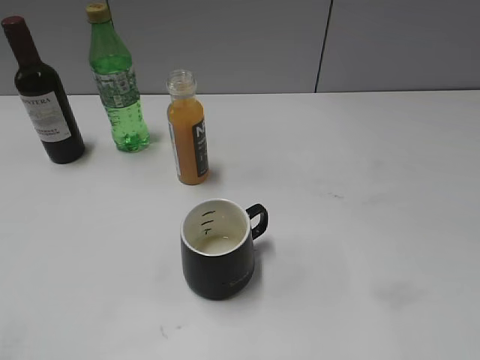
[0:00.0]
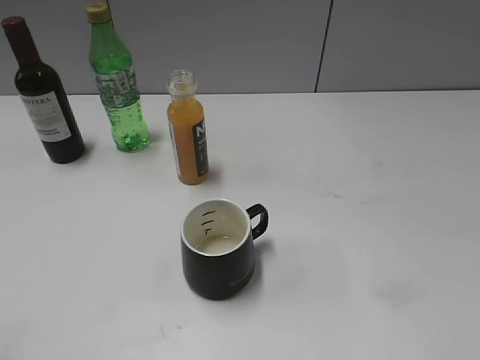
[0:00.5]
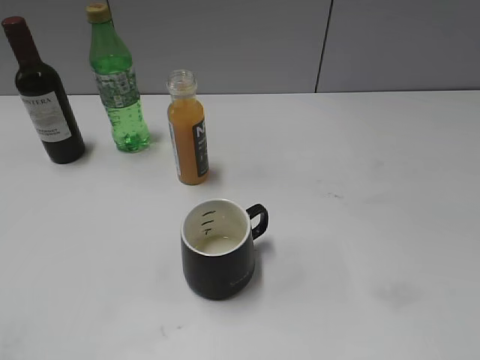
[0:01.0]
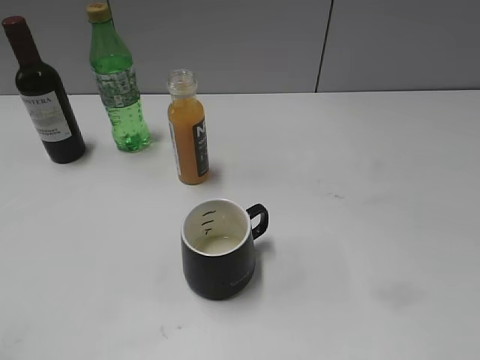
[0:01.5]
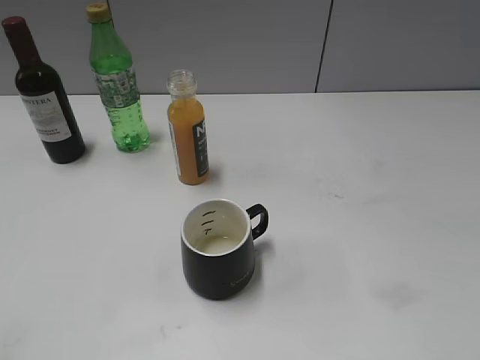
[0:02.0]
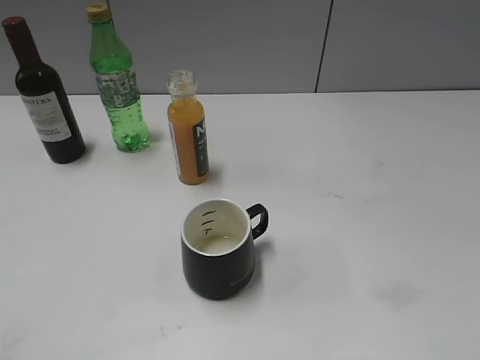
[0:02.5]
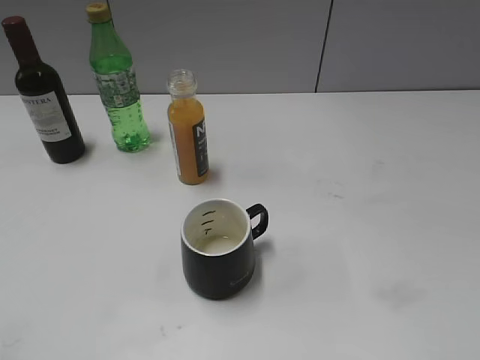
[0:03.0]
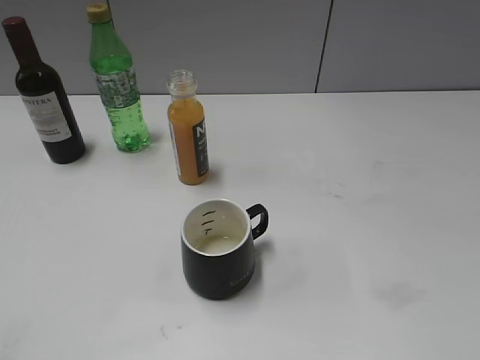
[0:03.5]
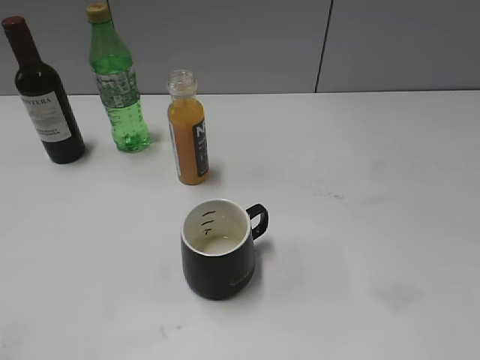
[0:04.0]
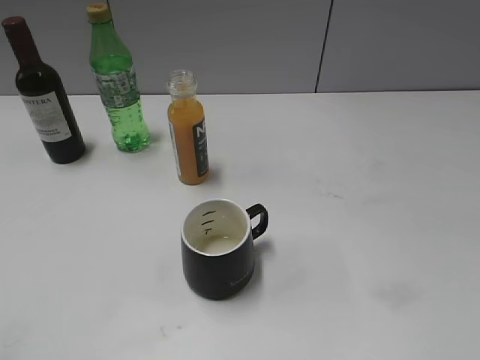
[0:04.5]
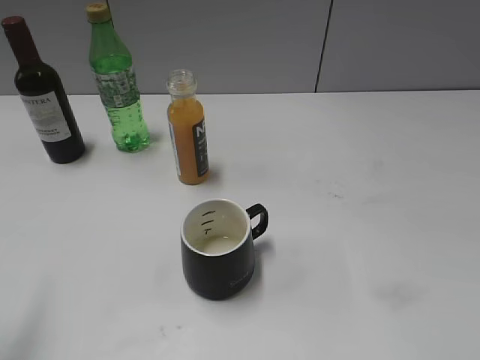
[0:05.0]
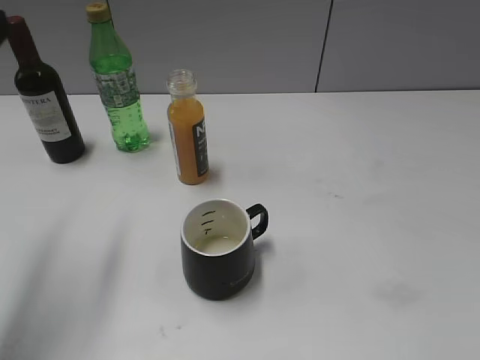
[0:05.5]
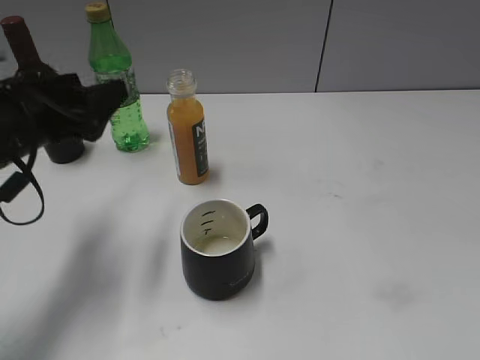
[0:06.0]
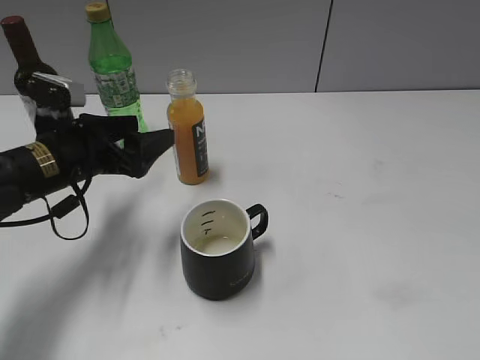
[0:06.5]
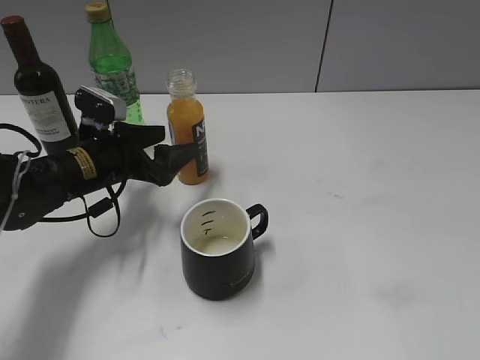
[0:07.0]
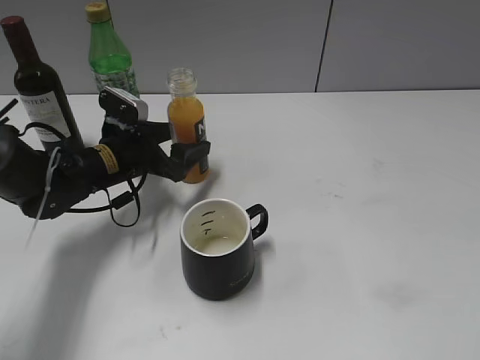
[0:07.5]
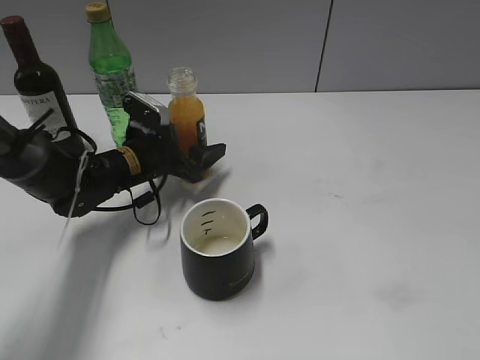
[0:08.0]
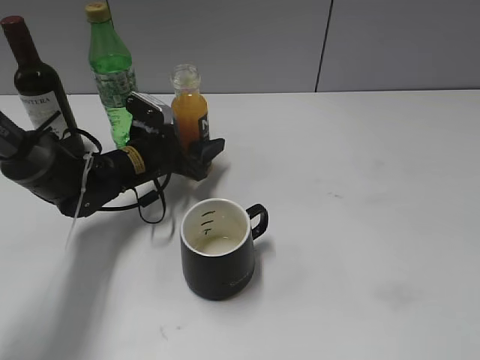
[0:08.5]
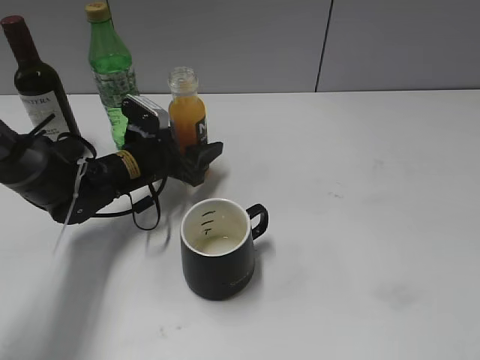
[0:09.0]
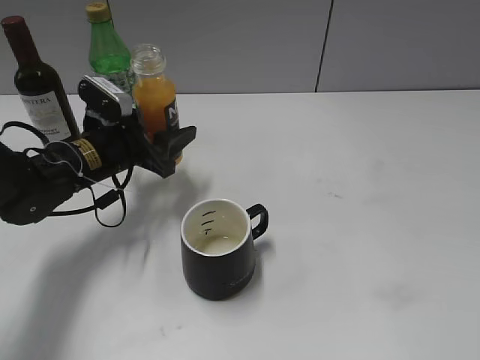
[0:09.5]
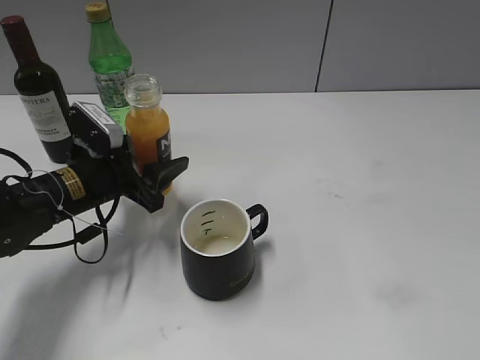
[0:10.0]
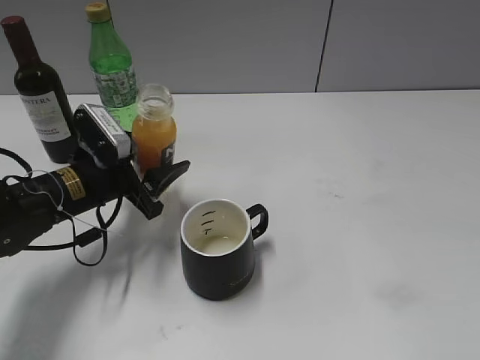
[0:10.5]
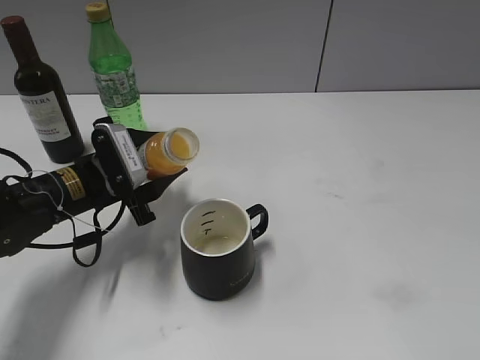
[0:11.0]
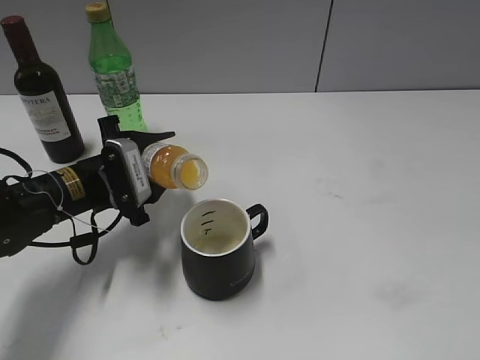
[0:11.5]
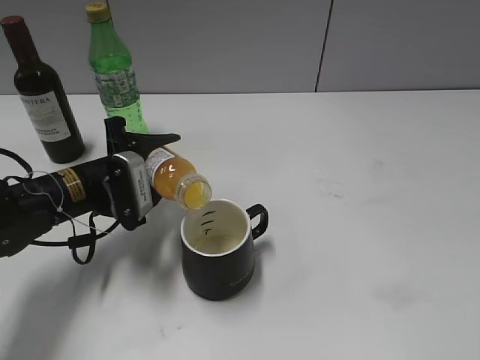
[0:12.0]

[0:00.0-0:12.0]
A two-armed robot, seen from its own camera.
Step, 0:00.0 to 0:09.0: Grasp the bottle with orange juice with left gripper.
0:04.0 to 0:06.0: The left gripper is displaced forward by approximately 30 cm.
0:06.0 to 0:08.0: The left gripper moves downward, forward and to the right, approximately 20 cm.
0:08.0 to 0:10.0: The left gripper heads backward, covering some 5 cm, and closes its fingers.

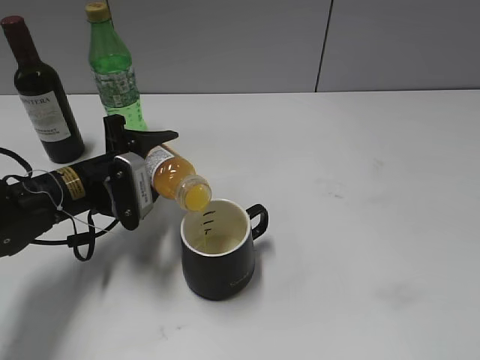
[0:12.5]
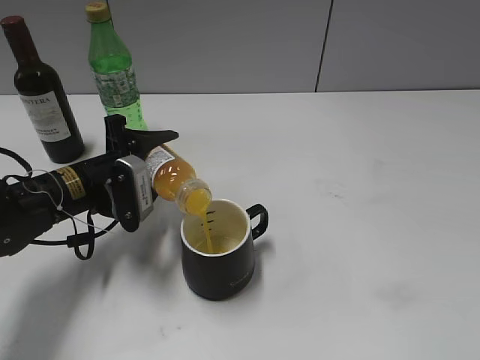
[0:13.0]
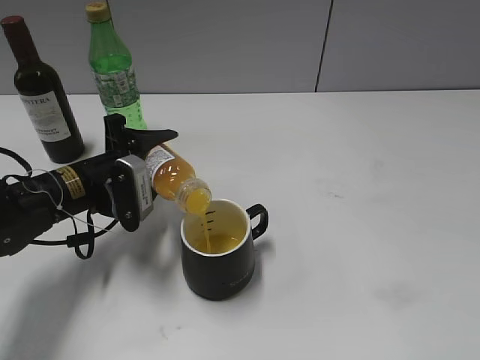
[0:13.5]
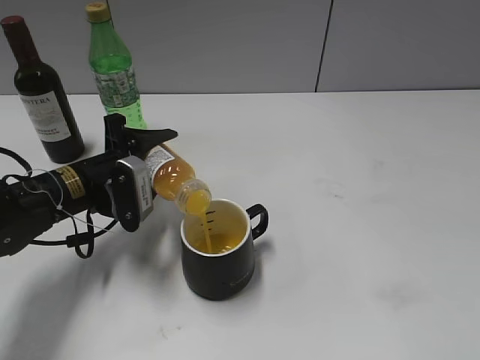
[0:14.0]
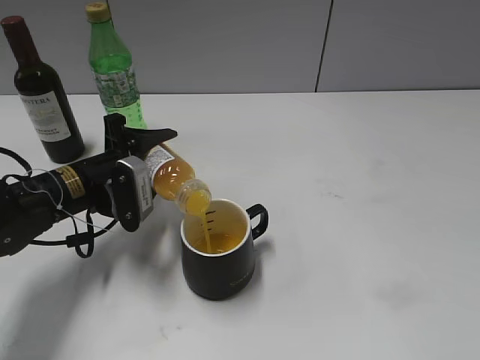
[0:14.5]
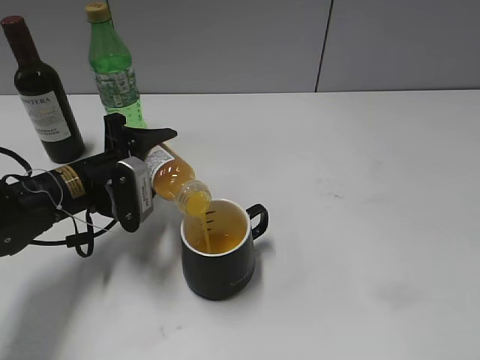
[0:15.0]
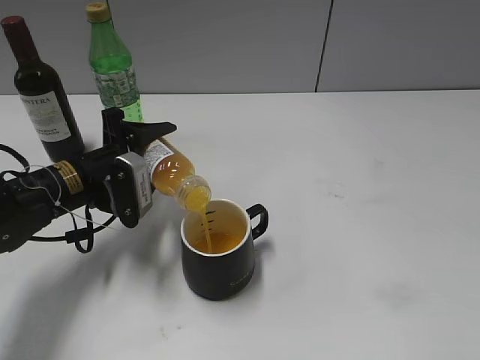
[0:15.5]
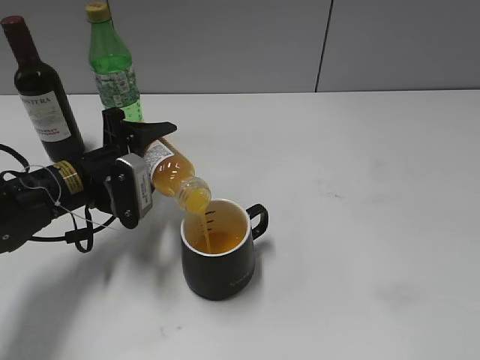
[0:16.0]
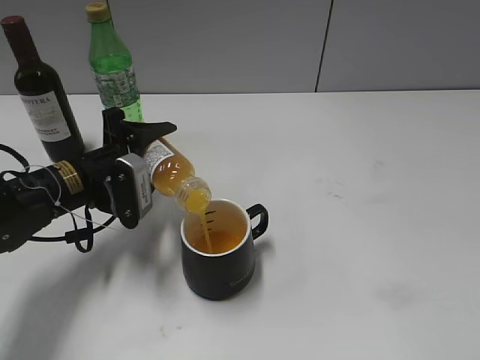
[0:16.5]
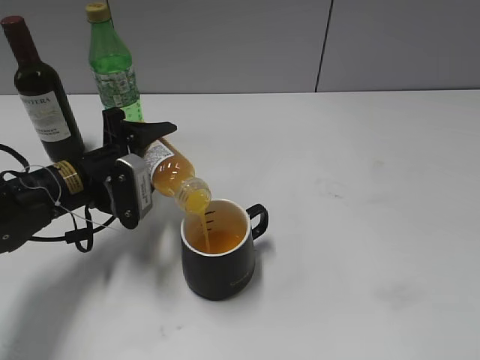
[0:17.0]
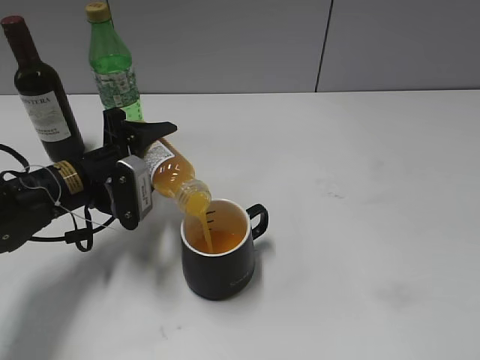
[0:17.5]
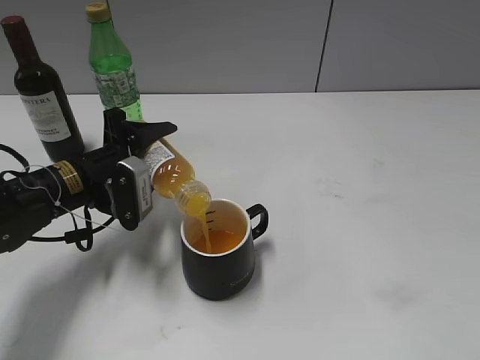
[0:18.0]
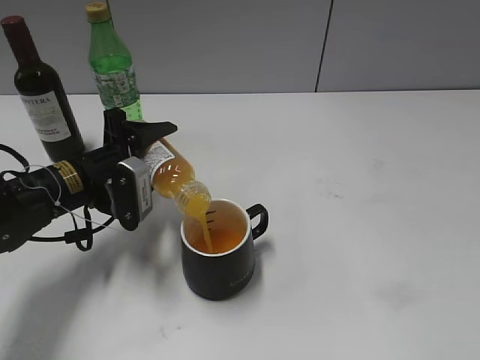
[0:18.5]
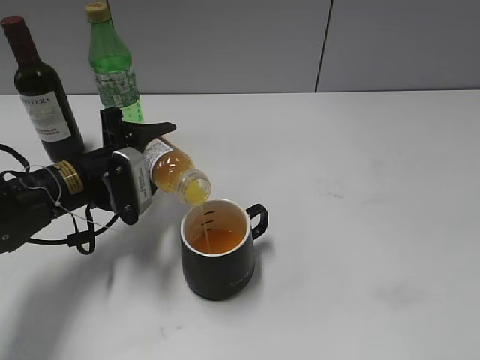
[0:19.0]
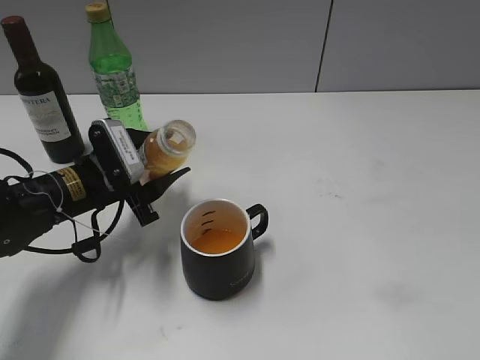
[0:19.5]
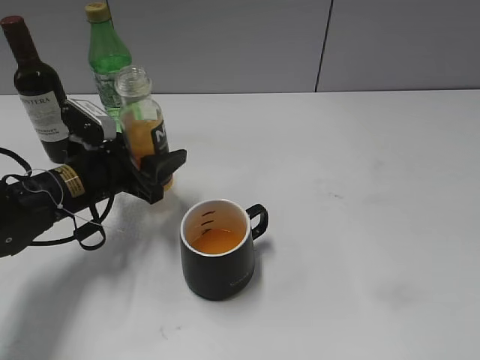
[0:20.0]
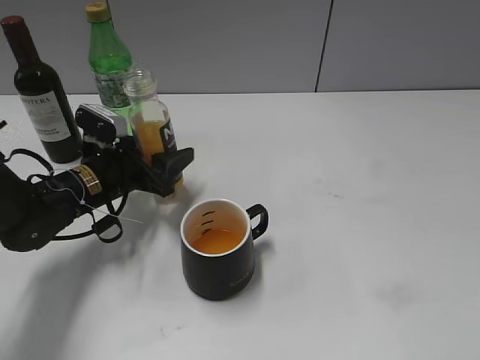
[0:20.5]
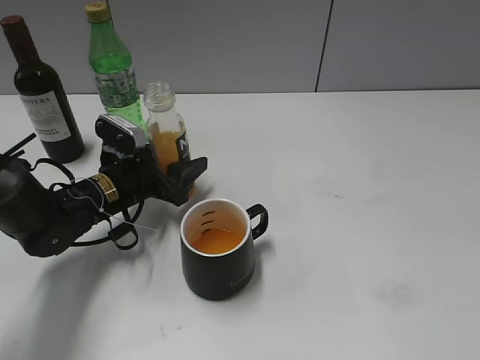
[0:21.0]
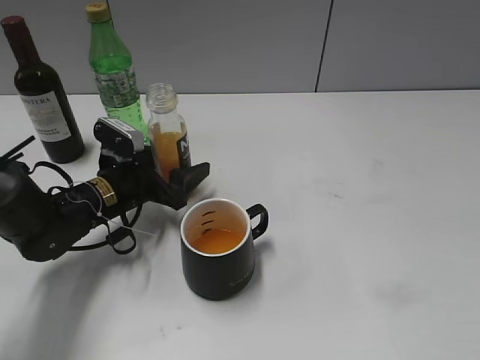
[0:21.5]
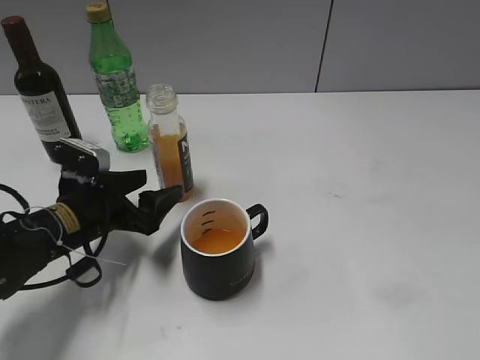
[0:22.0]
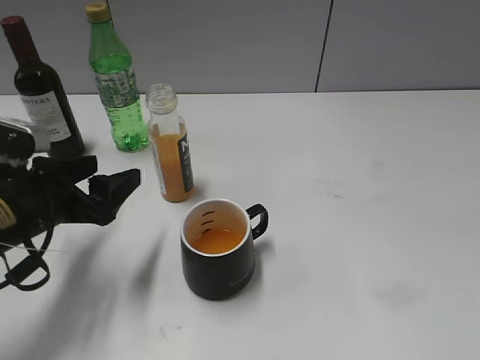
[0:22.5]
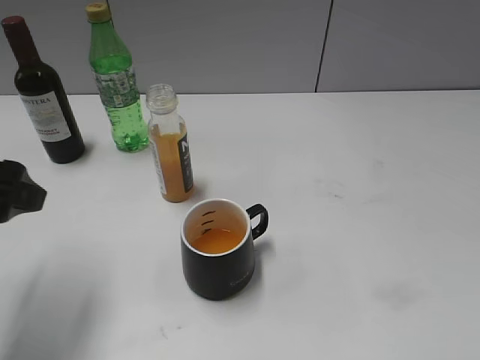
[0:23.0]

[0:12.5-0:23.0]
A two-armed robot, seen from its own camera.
Step, 0:12.5 to 0:19.0: Pour the orange juice from bottle to cup with left gripper.
Step, 0:19.5 to 0:21.5: Place the orange juice bottle on the table with left gripper.
0:12.5 to 0:14.5: Neither gripper changes place.
0:14.5 to 0:16.5: Neither gripper changes place.
0:16.5 to 0:19.0: The two grippers keep their place.
0:19.0 to 0:21.0: The left gripper ends up some 5 cm from where it was.
0:21.0 to 0:23.0: The left gripper goes about 25 cm upward, backward and to the left.

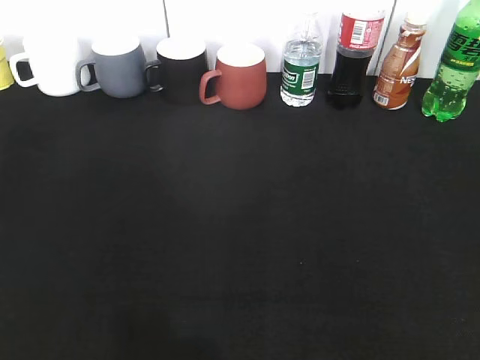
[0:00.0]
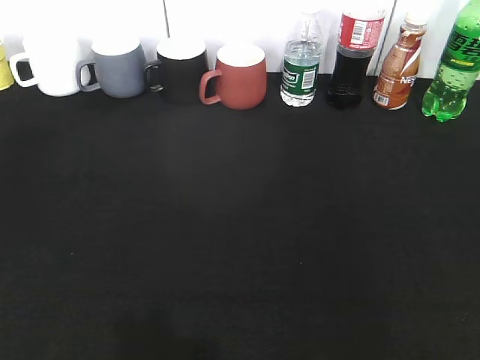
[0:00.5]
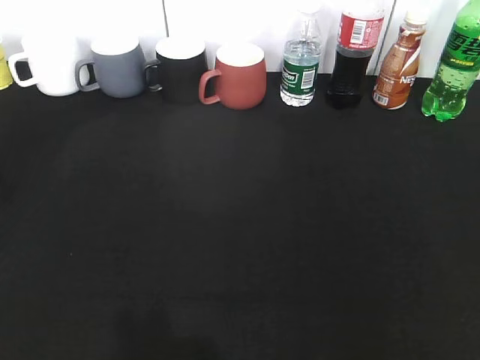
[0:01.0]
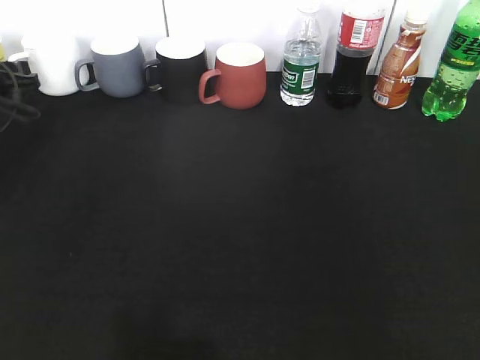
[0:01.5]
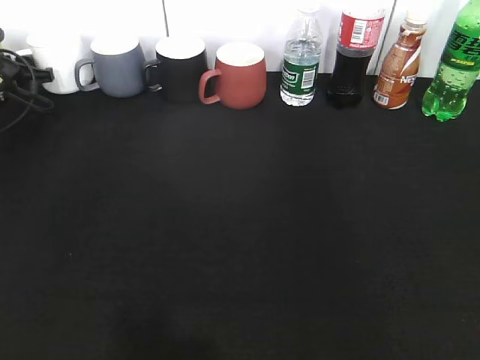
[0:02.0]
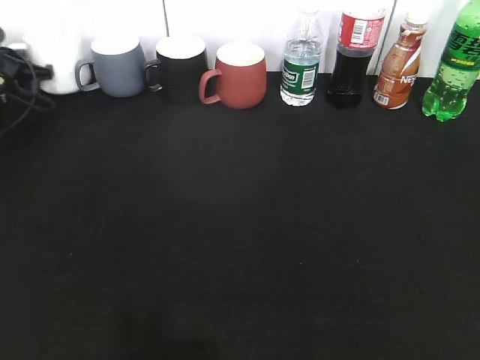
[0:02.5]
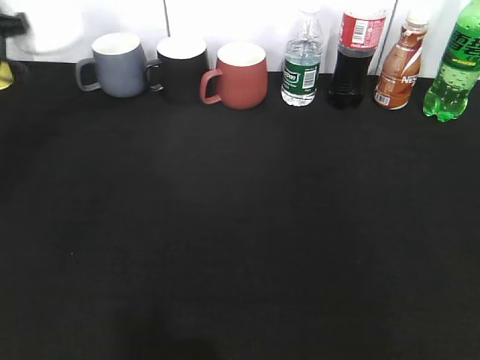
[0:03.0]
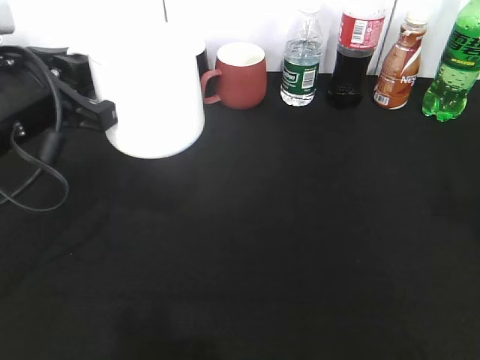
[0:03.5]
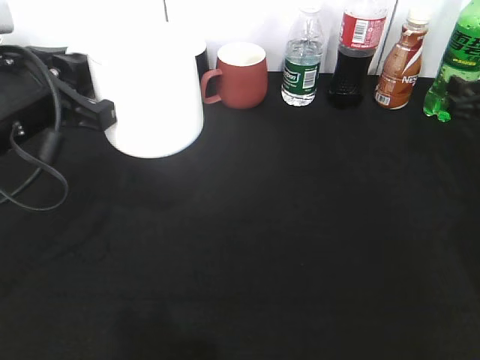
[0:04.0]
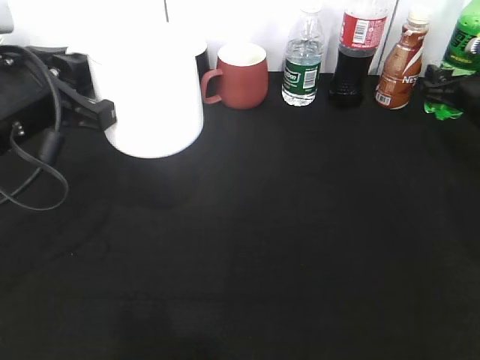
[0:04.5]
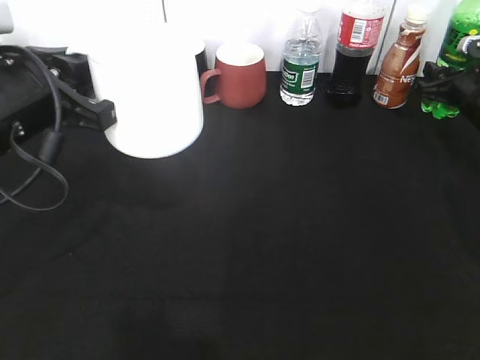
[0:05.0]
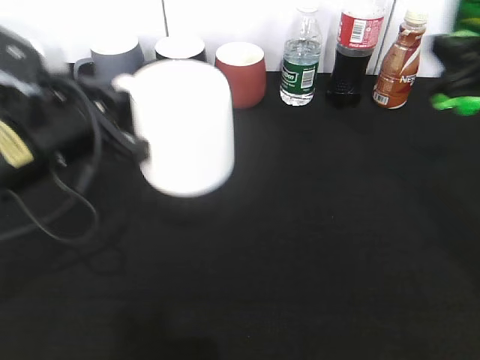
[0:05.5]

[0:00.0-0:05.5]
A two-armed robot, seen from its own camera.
Step, 0:00.0 to 0:02.0: Grasp the white cup with left gripper.
Step, 0:02.5 to 0:03.5: Lift the white cup with left gripper.
Step, 0:04.0 to 0:04.5: Grasp the bottle with sprite with right gripper.
0:00.0 to 0:02.0: The left gripper goes some 50 cm forward, and closes.
0:02.0 to 0:03.5: The right gripper travels forward by approximately 20 cm, and opens its fingers, while the left gripper travels backward, to the right and upward by about 35 cm, and closes up.
0:03.5 to 0:05.5: The right gripper goes approximately 10 cm forward and to the left, and closes.
